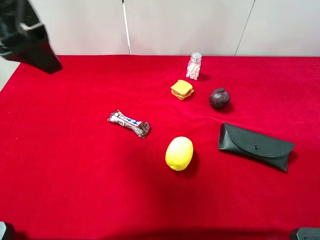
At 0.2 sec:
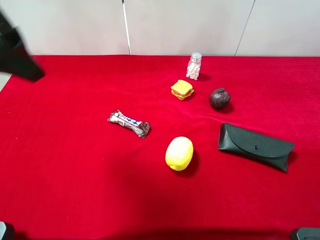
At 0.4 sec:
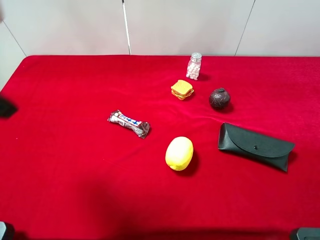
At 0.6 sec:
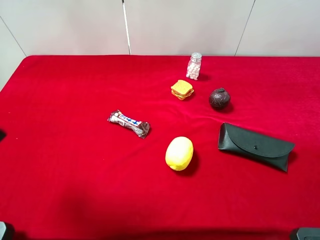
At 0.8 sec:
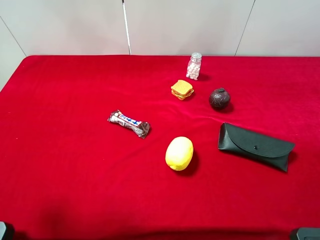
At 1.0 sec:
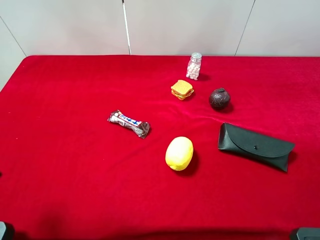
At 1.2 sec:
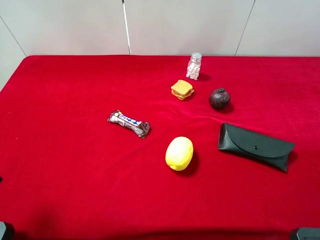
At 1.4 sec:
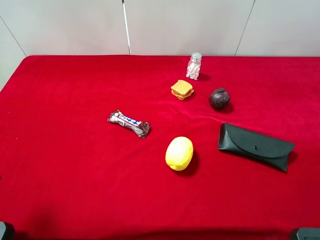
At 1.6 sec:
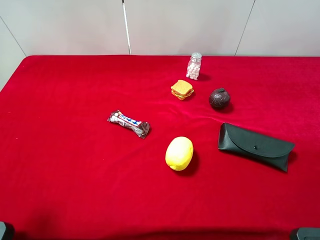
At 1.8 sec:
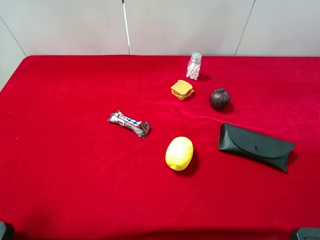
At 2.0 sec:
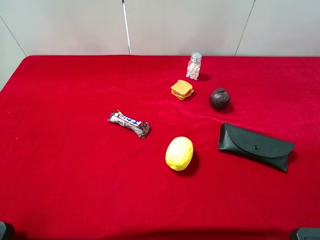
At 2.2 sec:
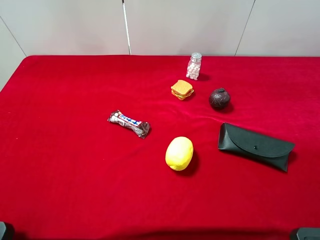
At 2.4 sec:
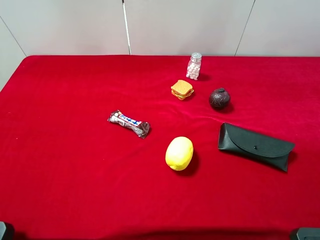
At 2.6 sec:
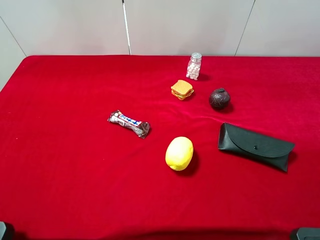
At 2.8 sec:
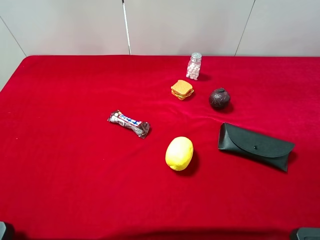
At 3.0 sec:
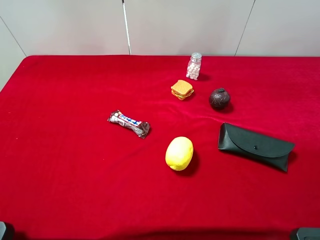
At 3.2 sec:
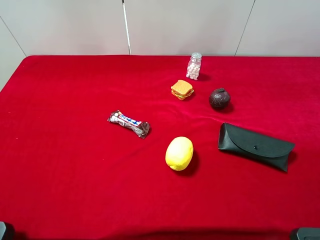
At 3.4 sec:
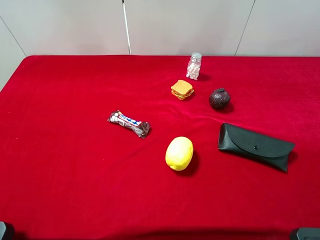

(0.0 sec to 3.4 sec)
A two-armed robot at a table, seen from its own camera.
Task of the whole recording: the gripper move the object.
0.0 sec - 1.6 sec: The left gripper travels backward, to the left and downward by roughly 20 cm.
